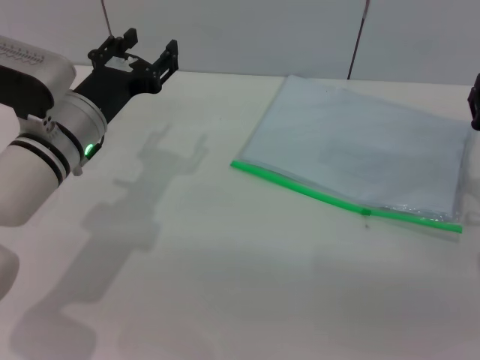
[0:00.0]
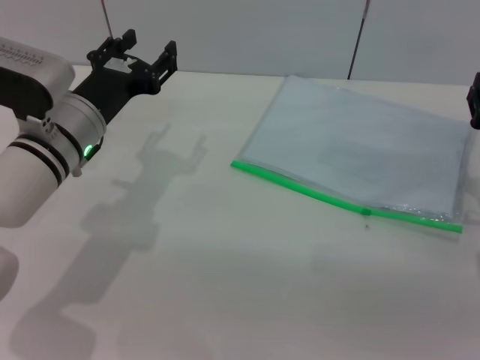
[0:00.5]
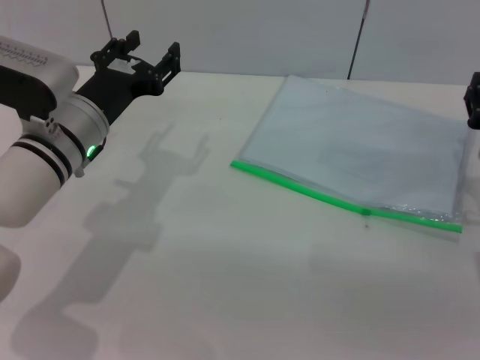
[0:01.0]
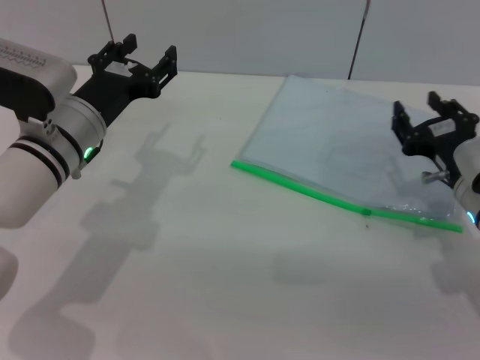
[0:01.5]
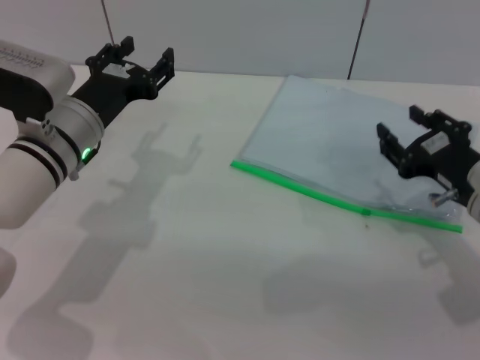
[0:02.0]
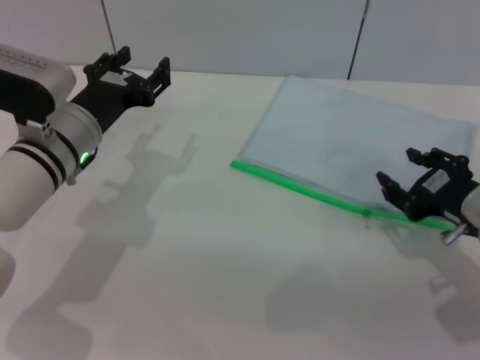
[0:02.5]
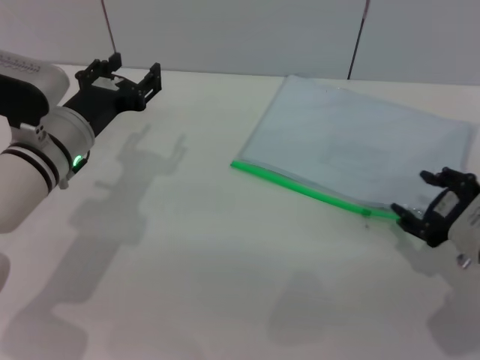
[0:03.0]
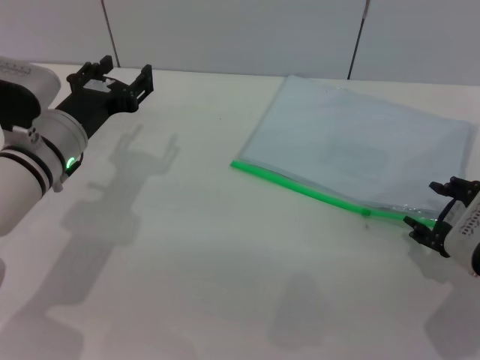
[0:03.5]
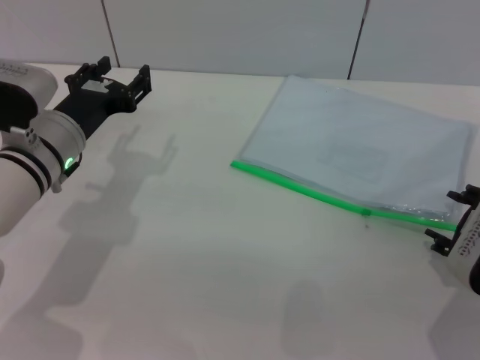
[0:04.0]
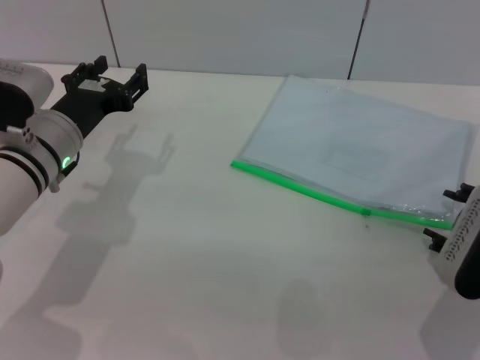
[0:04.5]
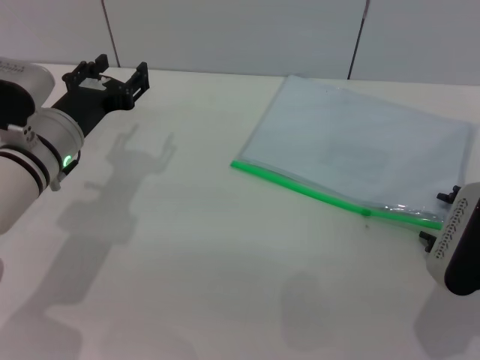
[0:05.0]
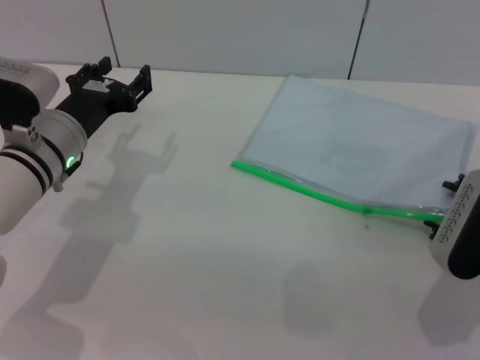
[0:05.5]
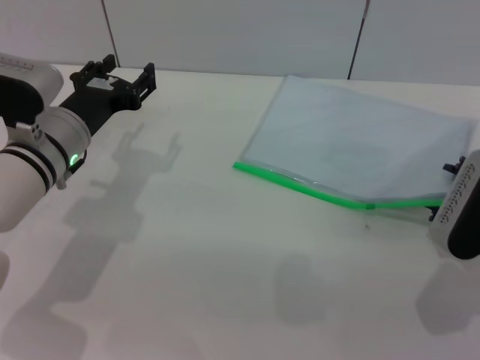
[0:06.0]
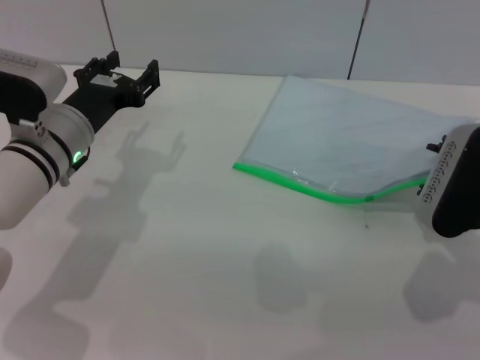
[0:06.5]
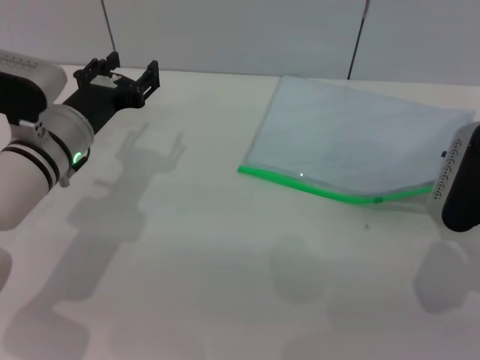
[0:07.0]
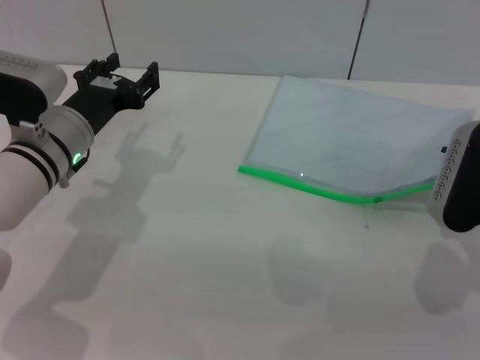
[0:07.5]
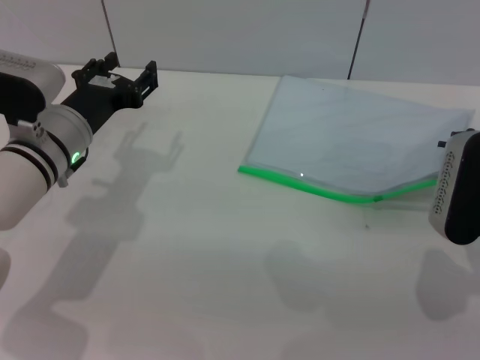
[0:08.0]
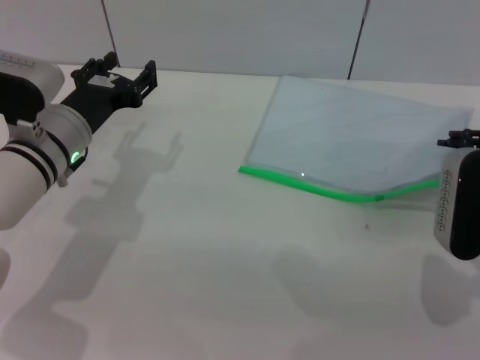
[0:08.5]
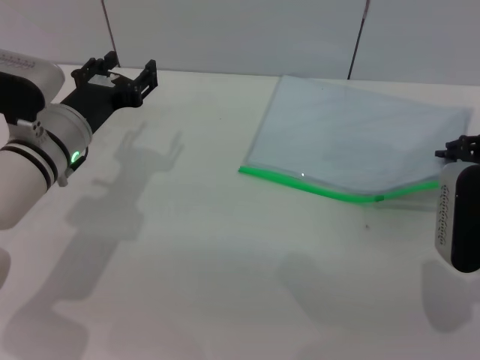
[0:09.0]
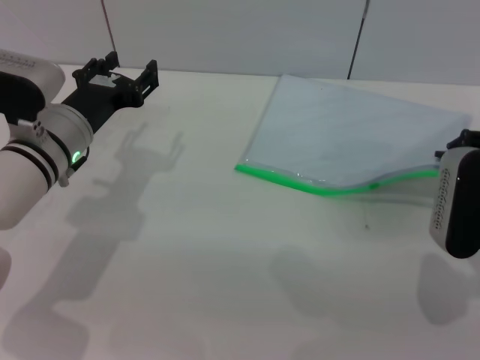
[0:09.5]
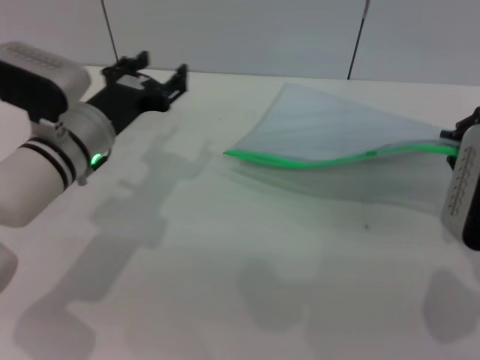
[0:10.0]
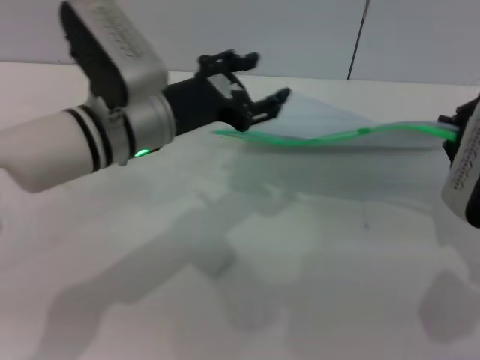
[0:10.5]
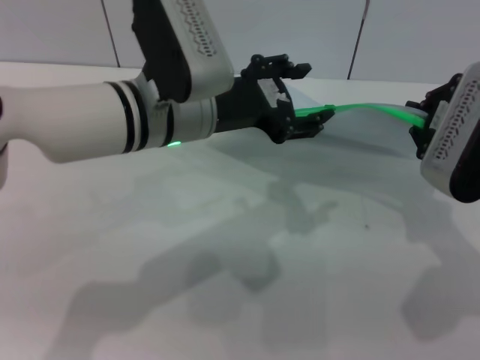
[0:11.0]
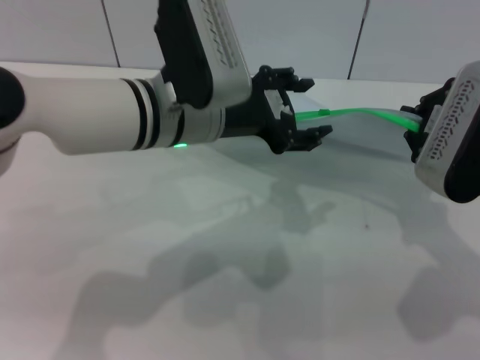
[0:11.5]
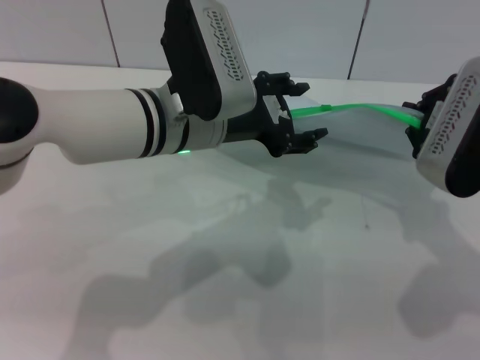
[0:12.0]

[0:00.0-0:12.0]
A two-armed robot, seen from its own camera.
Step, 0:00.0 to 0:09.5: Pick up the transparent plastic bag with the right gripper.
0:04.0 to 0:06.0: The grippers stay close to where they were, moving slightly.
0:06.0 to 0:08.0: The grippers stay close to where they were, moving slightly.
0:08.0 to 0:10.0: The right gripper closes up.
0:10.0 to 0:12.0: The right gripper shifts by roughly 5 cm; the left gripper travels to the right and upward by roughly 10 cm.

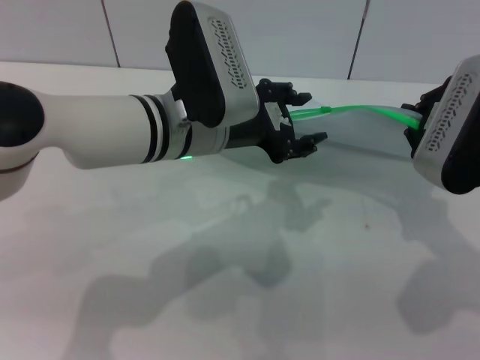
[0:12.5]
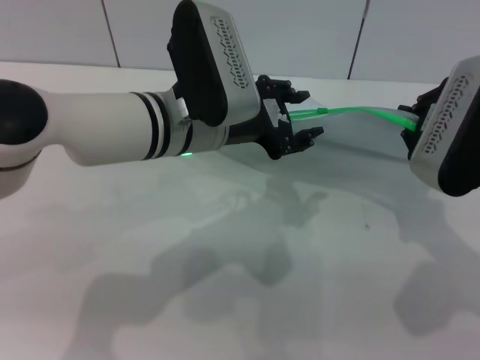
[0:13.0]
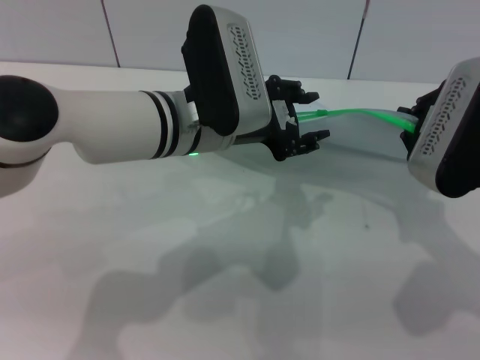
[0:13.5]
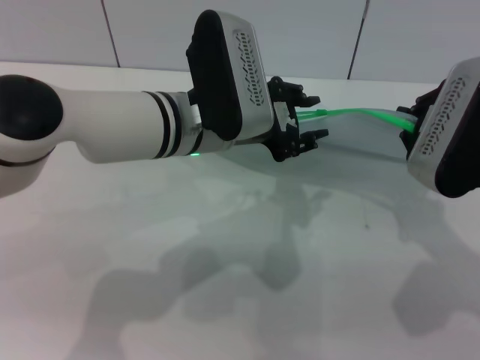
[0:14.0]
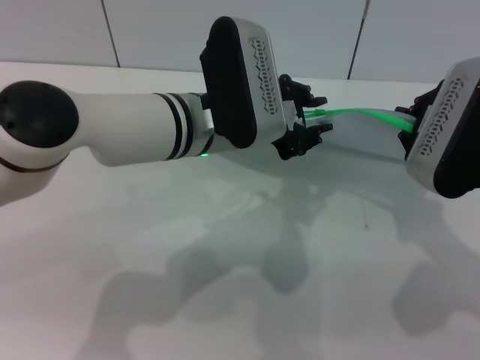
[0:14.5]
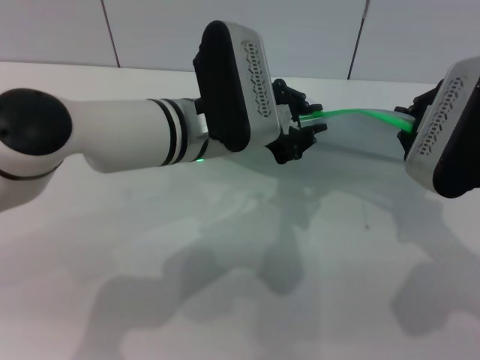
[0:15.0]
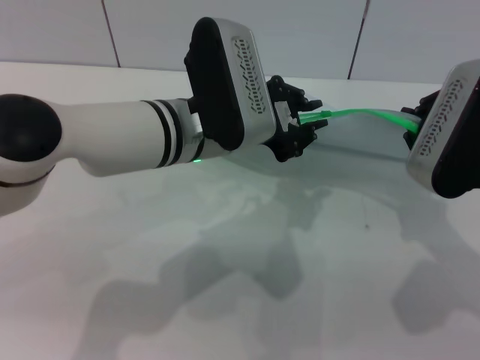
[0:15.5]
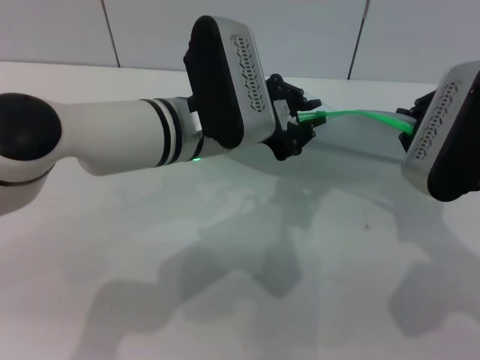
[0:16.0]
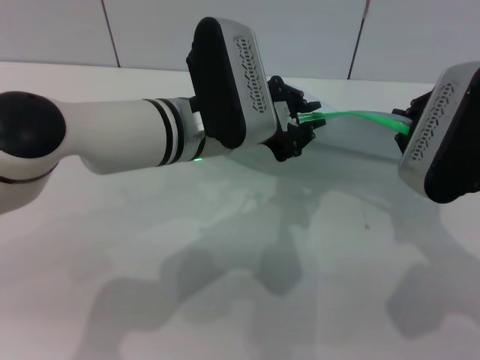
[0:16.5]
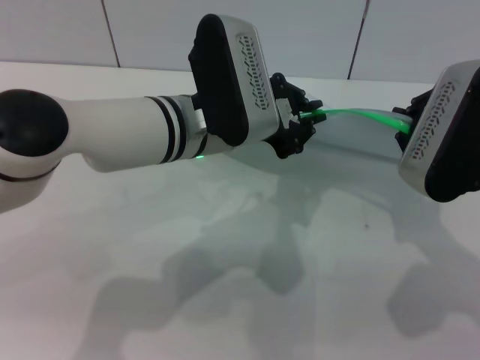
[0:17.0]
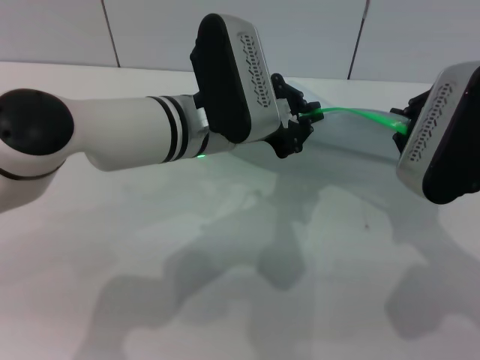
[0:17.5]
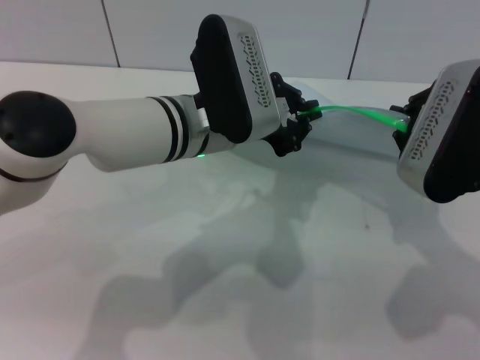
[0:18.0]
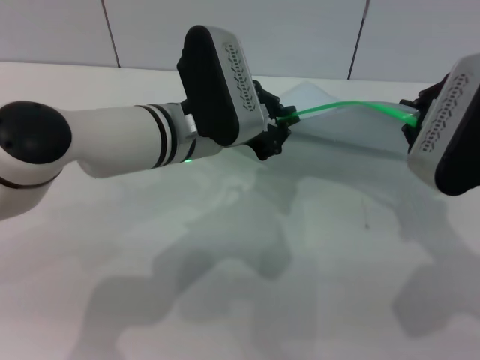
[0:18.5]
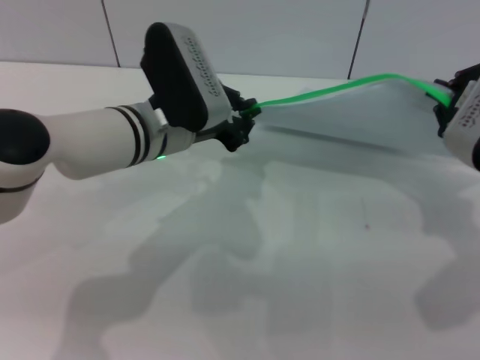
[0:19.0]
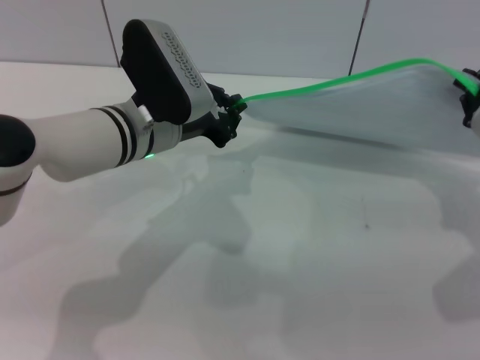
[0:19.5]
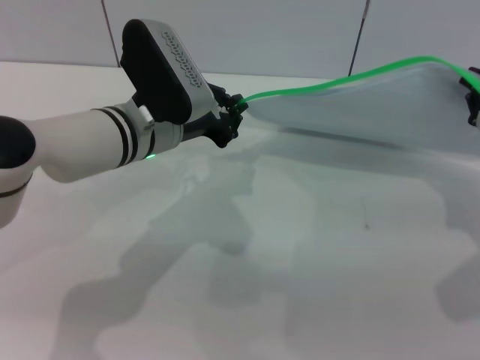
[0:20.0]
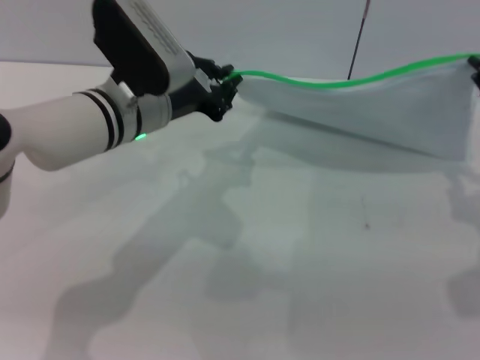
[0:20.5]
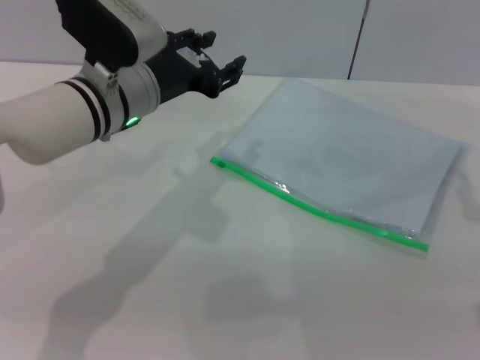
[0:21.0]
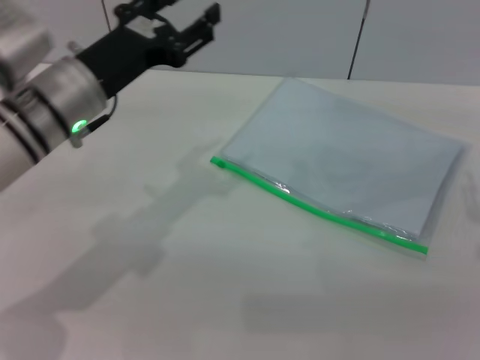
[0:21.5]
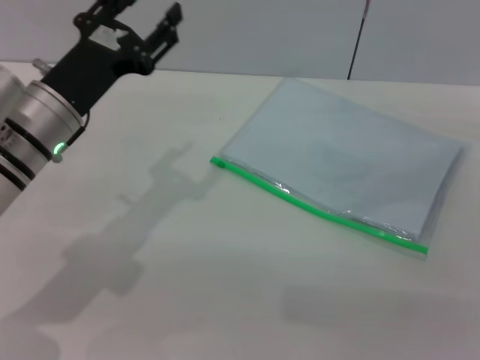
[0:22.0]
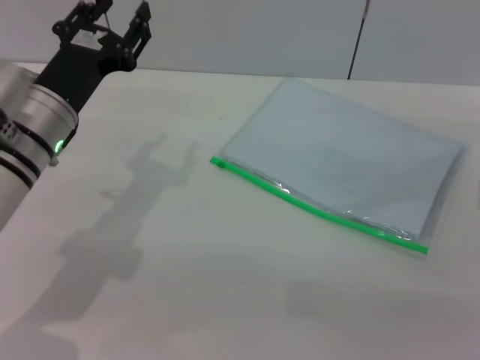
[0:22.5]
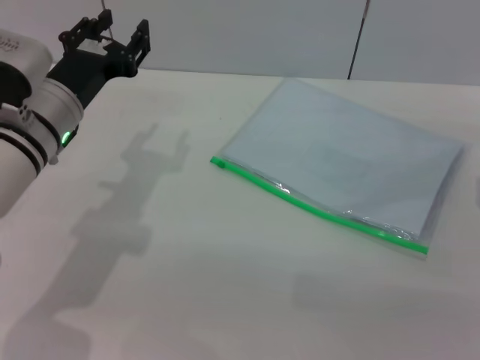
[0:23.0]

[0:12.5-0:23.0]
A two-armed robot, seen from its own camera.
Step, 0:12.5 to 0:20.5: Pulling up the zipper on the transparent plastic bag with the left gripper to close it.
Step, 0:21.0 to 0:21.5: Place the transparent plastic bag.
0:12.5 to 0:14.5: The left gripper closes its fingers.
0:14.5 to 0:16.5: The left gripper closes up.
0:16.5 to 0:19.0: The left gripper changes place by about 5 cm.
0:19.0 to 0:21.0: The left gripper opens; the right gripper opens its fingers.
0:21.0 to 0:23.0: The right gripper goes approximately 10 cm downward. Meanwhile the left gripper travels to the left by roughly 5 cm.

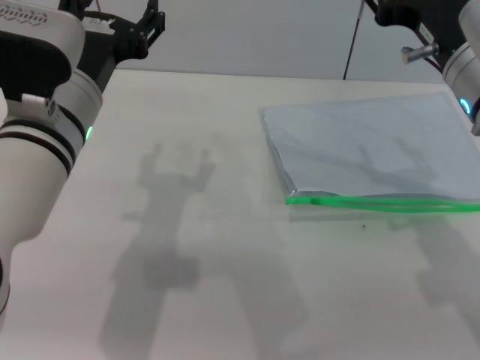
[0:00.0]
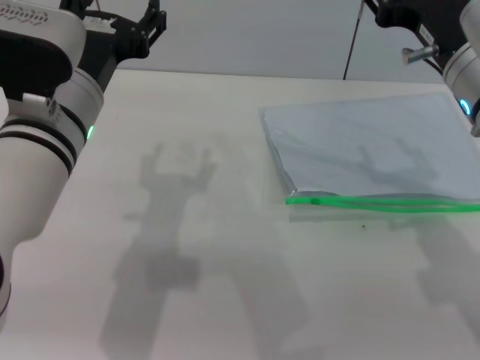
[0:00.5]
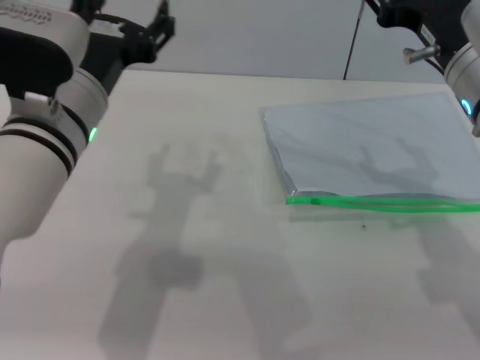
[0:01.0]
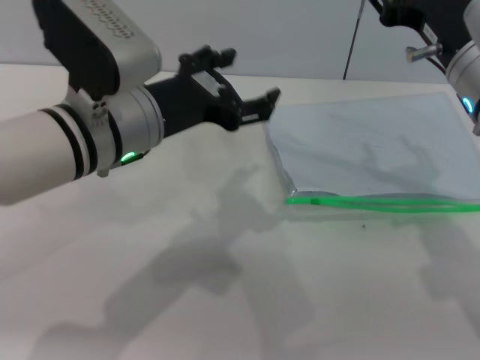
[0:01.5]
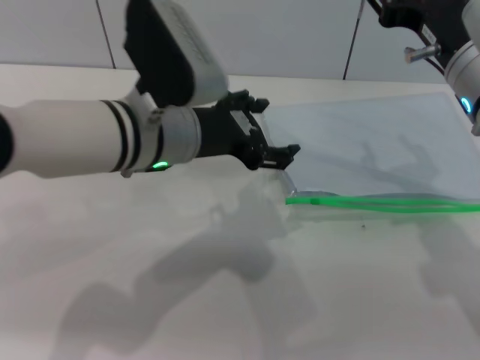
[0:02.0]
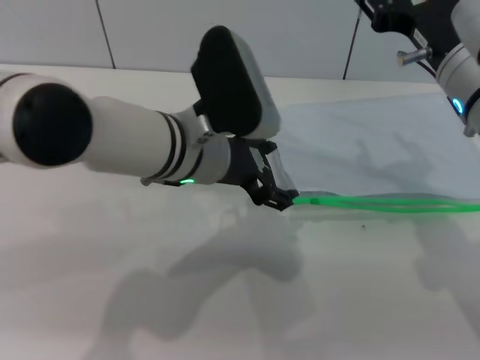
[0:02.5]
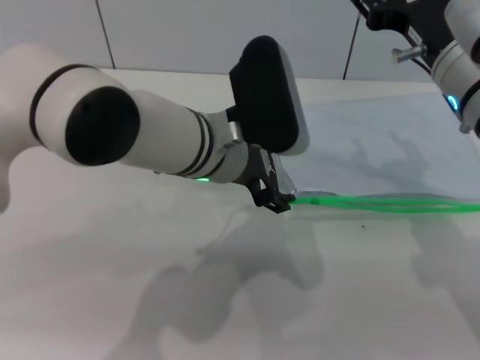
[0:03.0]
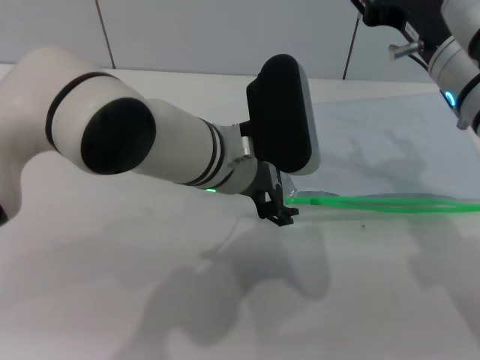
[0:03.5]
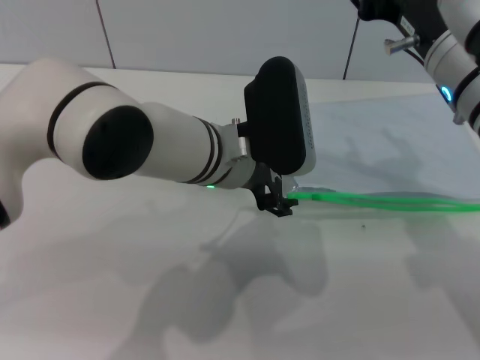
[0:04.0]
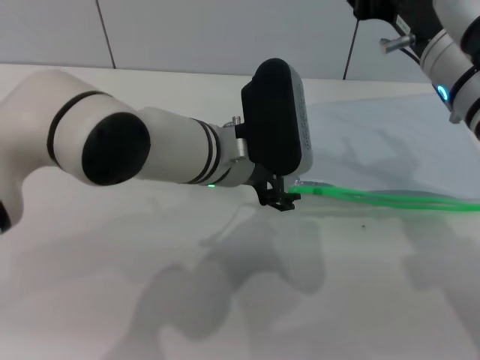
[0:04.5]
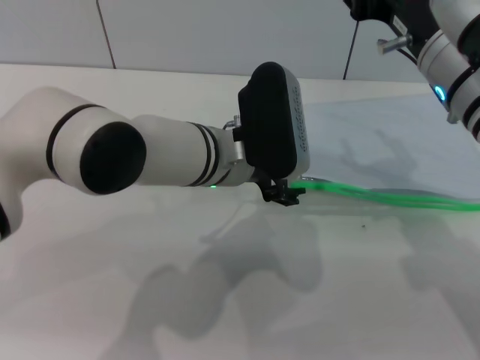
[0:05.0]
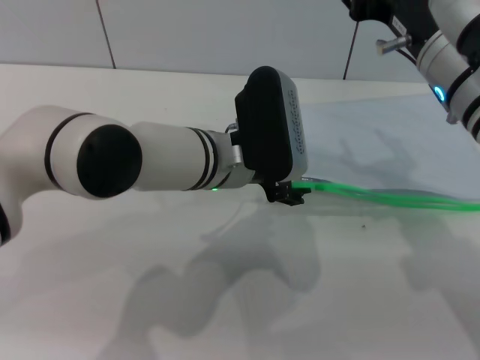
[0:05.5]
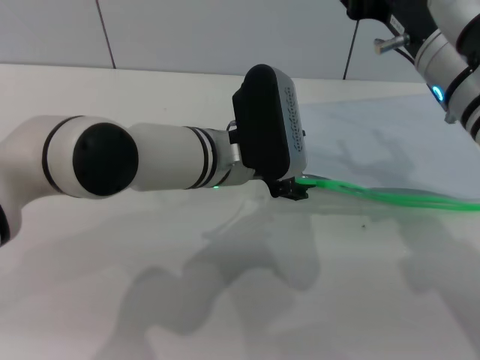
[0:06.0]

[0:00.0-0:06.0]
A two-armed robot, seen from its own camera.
0:00.0 to 0:02.0: The left gripper changes place by approximately 5 cm.
0:02.0 to 0:04.0: The left gripper shifts about 5 cm to the right.
0:04.0 to 0:06.0: The grippers stay close to where they were, moving slightly.
